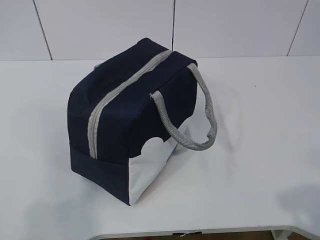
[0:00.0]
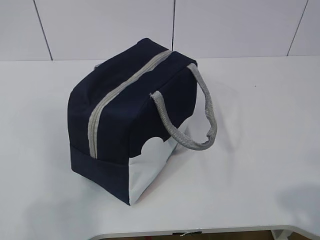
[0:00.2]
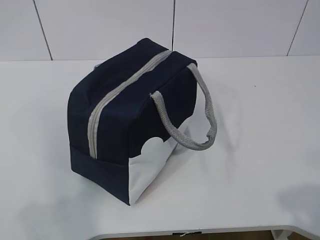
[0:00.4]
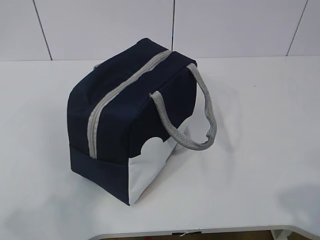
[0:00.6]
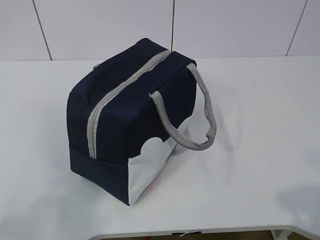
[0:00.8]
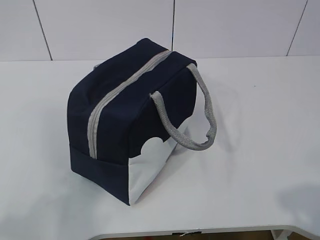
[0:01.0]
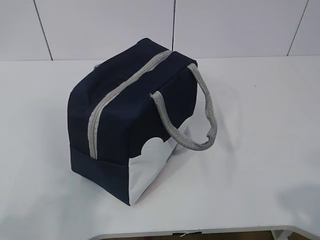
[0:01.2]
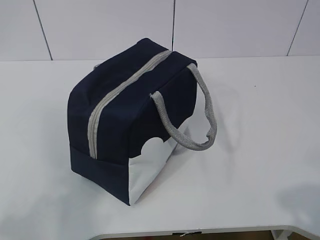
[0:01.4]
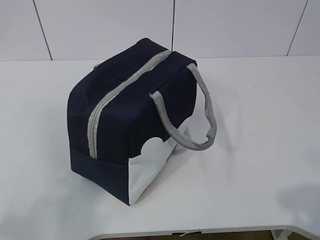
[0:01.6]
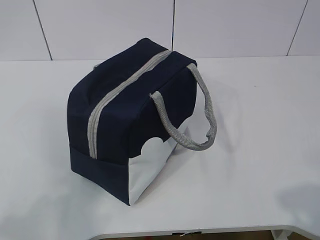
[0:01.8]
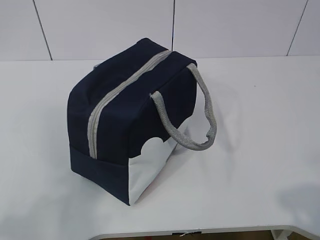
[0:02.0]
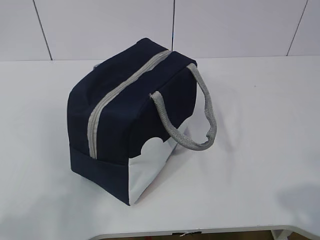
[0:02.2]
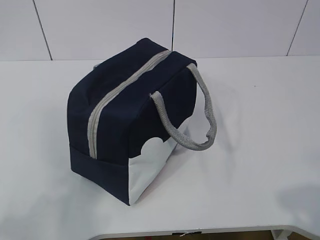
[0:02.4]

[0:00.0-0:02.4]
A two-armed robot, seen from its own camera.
0:01.2 to 0:02.4: The two grippers keep their place.

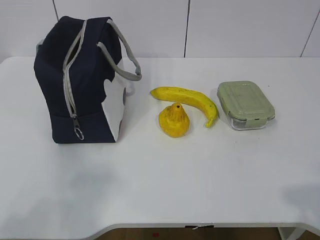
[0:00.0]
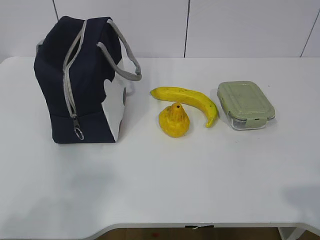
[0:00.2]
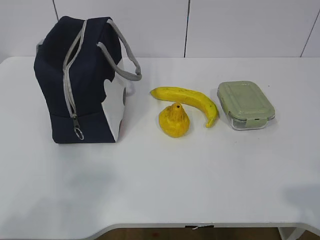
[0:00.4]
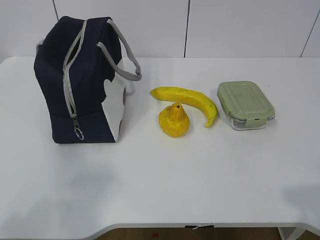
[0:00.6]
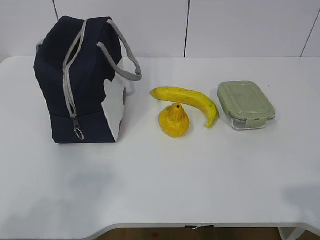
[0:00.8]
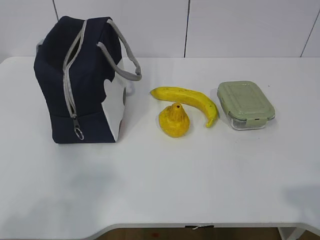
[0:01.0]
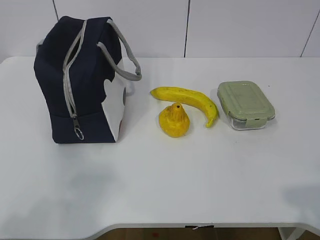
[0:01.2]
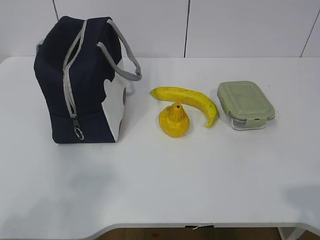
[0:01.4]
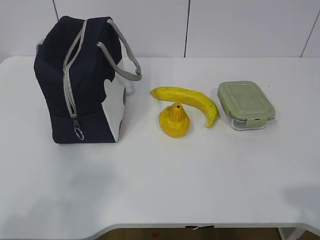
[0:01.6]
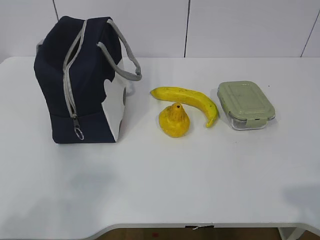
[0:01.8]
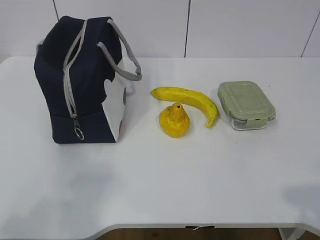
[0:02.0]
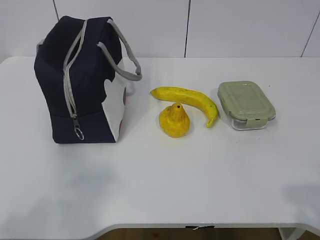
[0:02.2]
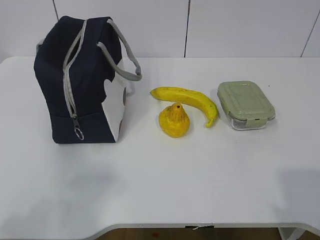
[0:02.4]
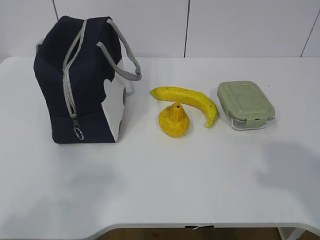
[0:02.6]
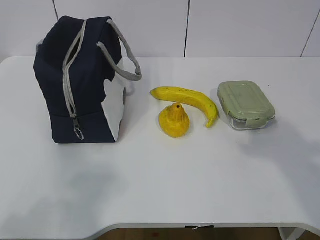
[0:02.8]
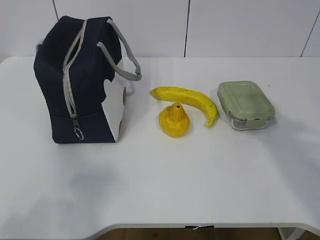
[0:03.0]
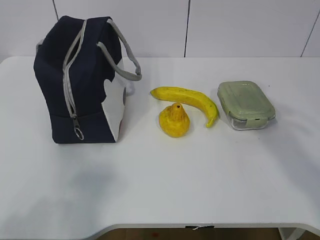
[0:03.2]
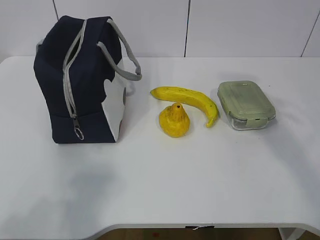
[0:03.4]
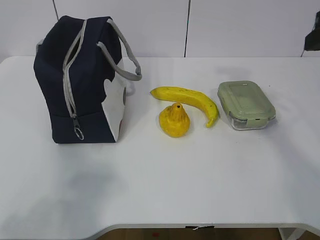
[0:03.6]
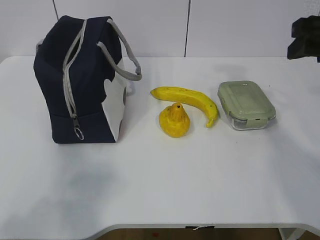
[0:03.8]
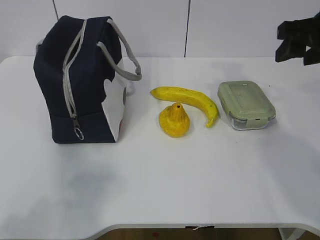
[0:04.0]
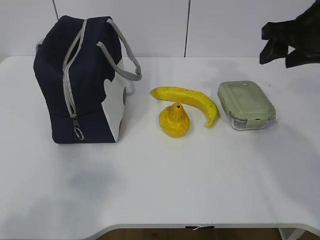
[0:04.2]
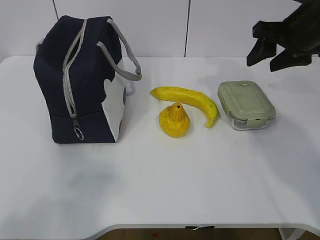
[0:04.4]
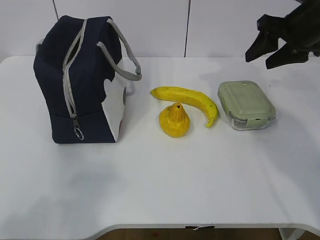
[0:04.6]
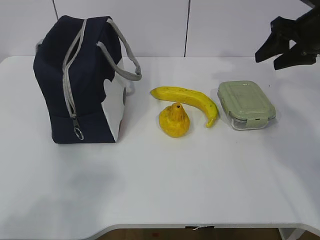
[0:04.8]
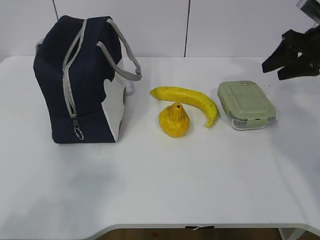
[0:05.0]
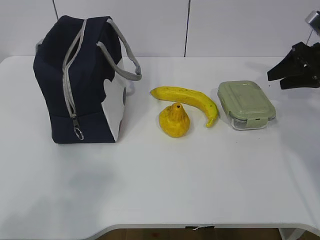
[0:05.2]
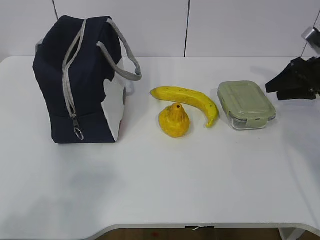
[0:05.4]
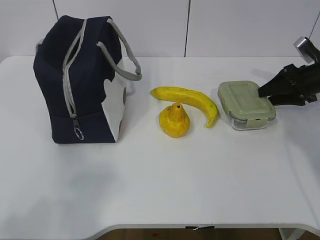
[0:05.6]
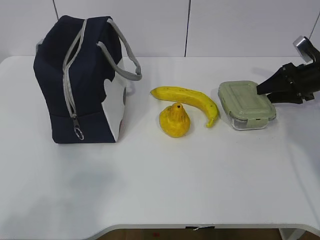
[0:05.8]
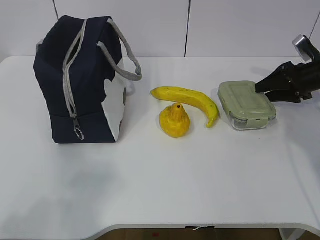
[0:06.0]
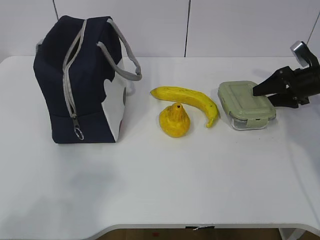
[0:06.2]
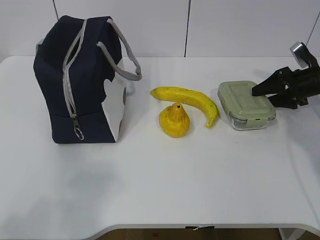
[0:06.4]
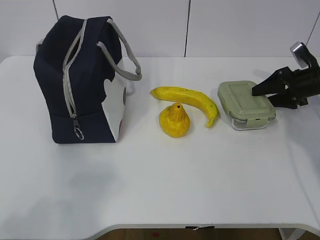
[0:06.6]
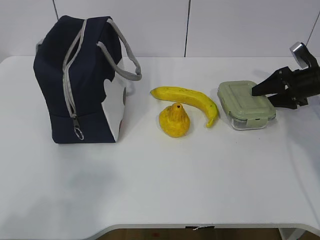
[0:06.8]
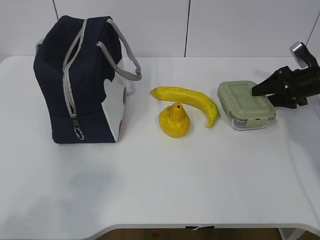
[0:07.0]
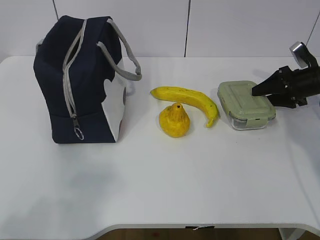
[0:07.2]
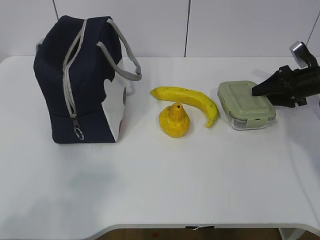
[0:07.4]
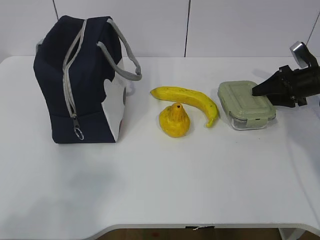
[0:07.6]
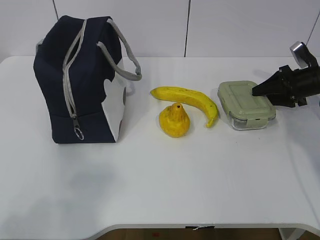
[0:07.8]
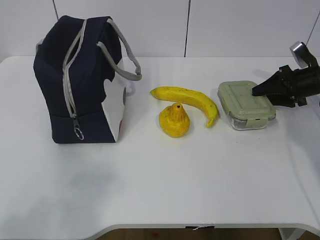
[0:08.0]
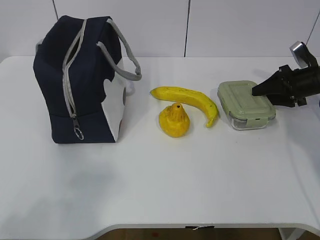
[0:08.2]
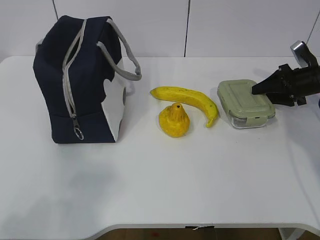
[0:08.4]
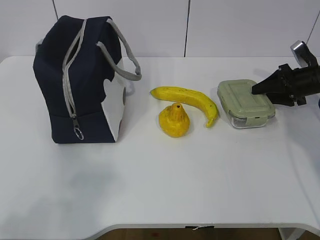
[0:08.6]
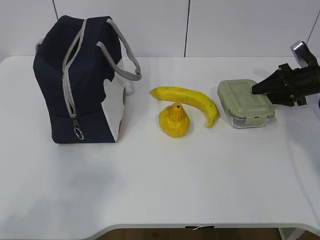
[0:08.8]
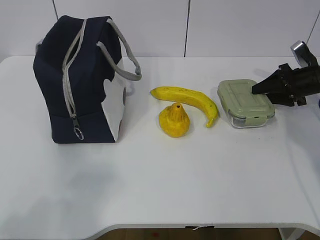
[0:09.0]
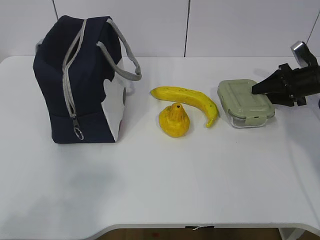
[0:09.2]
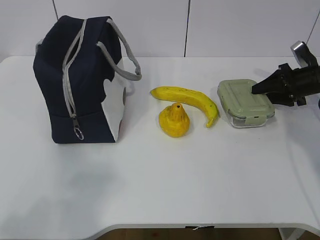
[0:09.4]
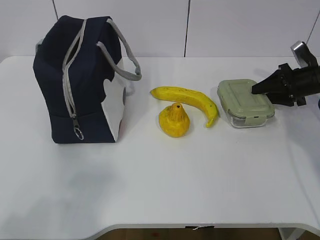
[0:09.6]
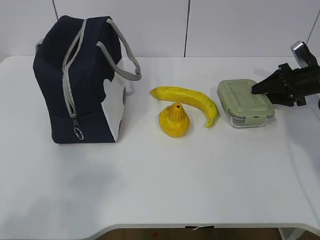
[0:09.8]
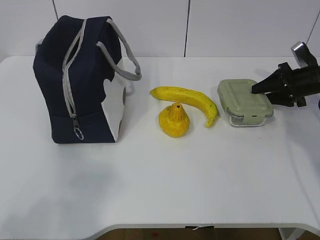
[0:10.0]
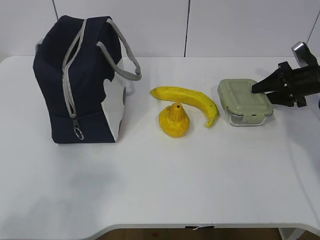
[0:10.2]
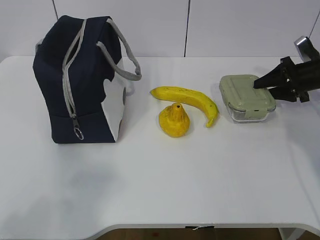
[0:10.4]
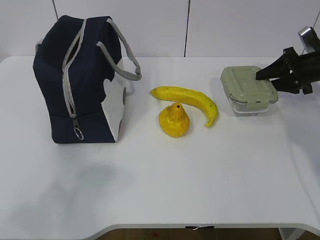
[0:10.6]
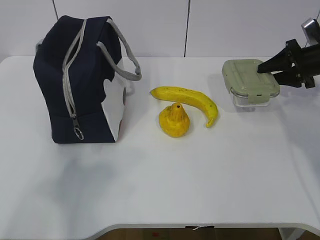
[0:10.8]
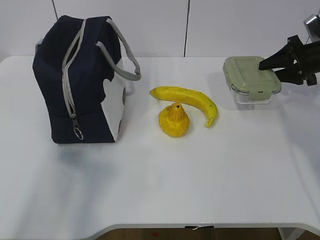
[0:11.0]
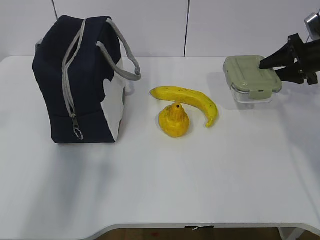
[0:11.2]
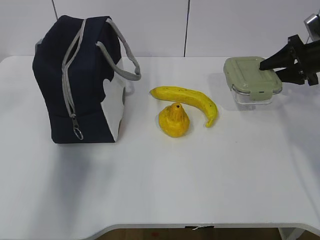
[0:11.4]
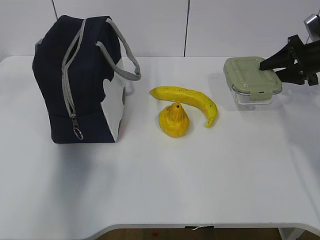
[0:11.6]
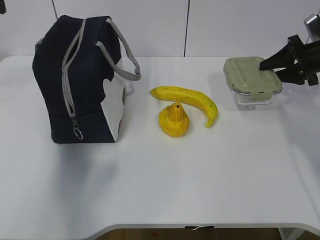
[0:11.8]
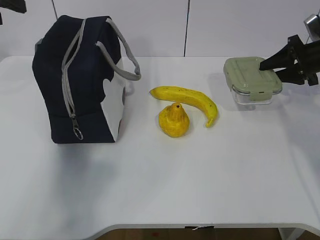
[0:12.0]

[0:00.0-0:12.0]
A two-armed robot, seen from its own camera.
Step, 0:00.0 to 0:08.2: Grab the lunch box with your right hand.
0:01.6 to 0:03.0: The right gripper travels forward and upward by roughly 15 cm.
0:03.0 to 0:04.4: The right gripper goes about 25 cm forward.
0:04.4 to 0:06.0: The right gripper shifts some 20 cm downward, to the right and forward.
0:06.0 to 0:07.6: The grippers stay close to where they were, moving slightly.
0:07.6 to 0:09.0: Both grippers stay about where they are.
0:09.0 to 0:10.4: Both grippers stay put.
0:10.4 to 0:12.0: The left gripper is displaced forward by about 35 cm, and opens up.

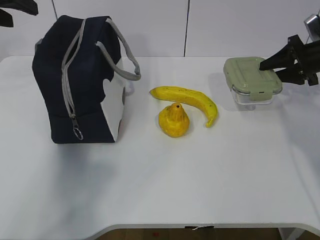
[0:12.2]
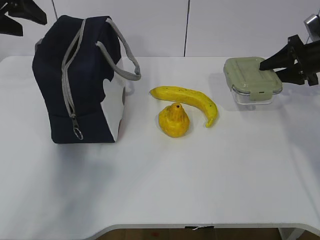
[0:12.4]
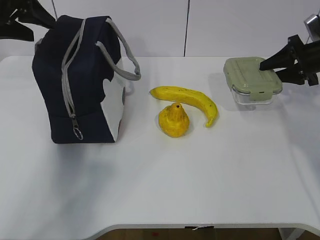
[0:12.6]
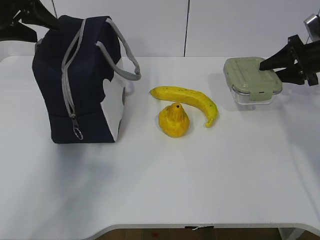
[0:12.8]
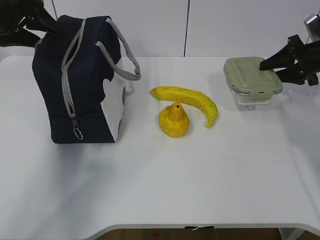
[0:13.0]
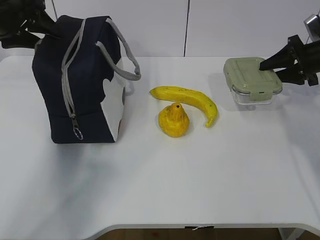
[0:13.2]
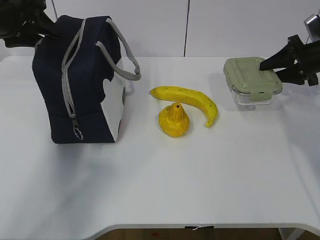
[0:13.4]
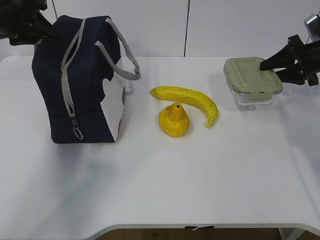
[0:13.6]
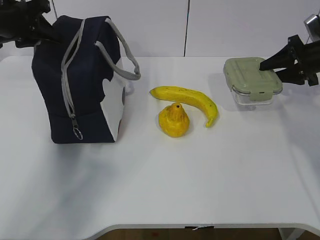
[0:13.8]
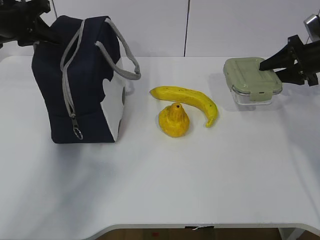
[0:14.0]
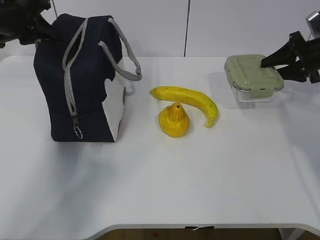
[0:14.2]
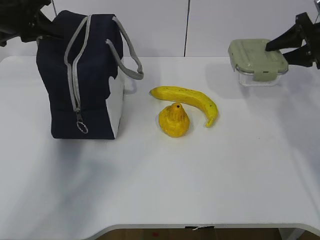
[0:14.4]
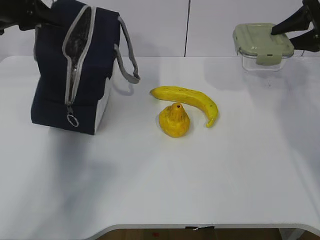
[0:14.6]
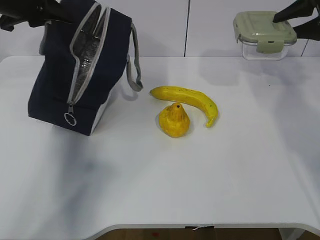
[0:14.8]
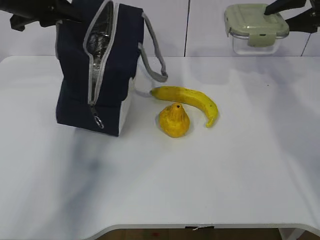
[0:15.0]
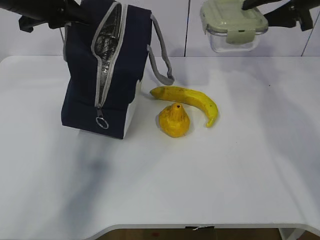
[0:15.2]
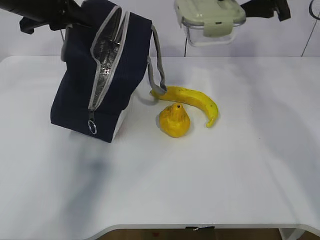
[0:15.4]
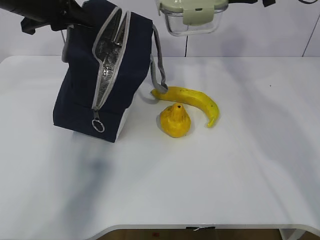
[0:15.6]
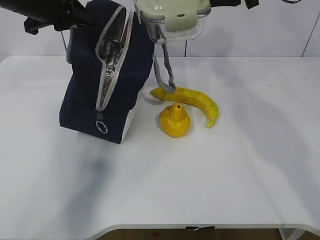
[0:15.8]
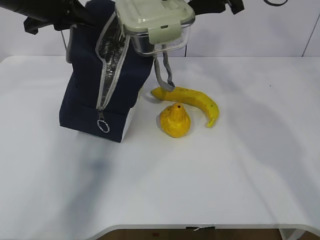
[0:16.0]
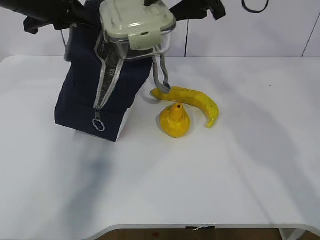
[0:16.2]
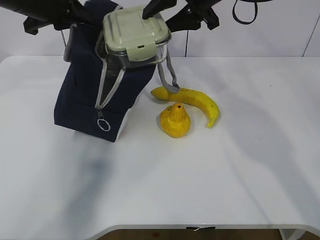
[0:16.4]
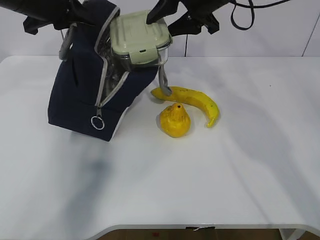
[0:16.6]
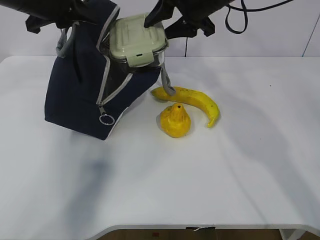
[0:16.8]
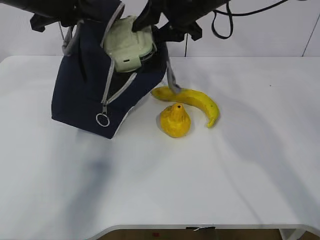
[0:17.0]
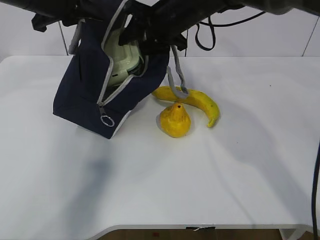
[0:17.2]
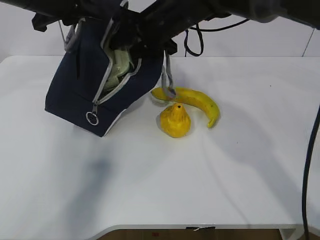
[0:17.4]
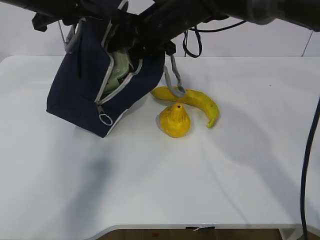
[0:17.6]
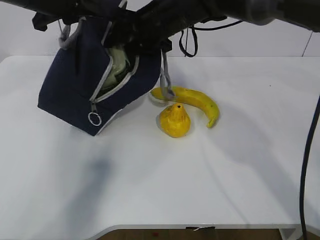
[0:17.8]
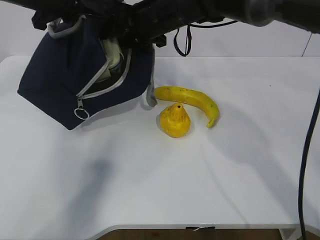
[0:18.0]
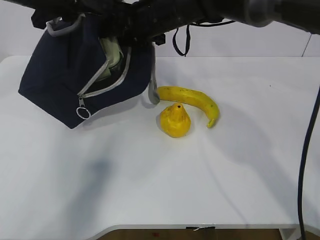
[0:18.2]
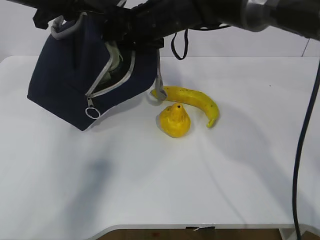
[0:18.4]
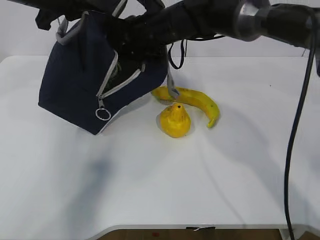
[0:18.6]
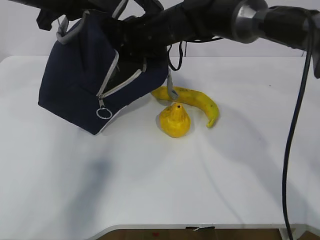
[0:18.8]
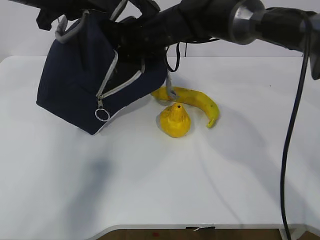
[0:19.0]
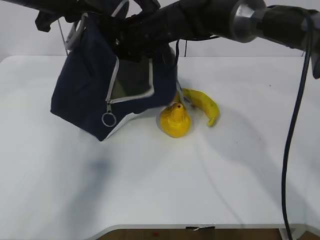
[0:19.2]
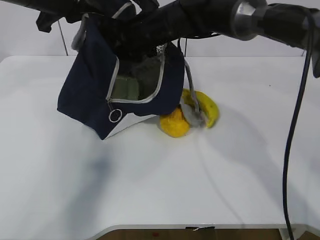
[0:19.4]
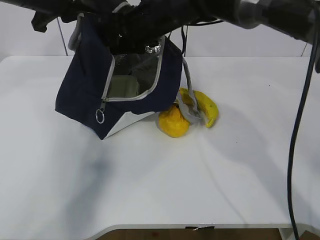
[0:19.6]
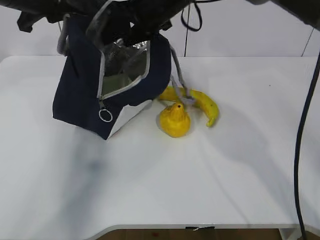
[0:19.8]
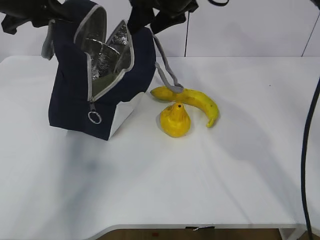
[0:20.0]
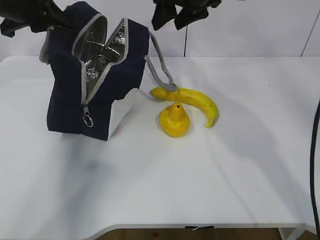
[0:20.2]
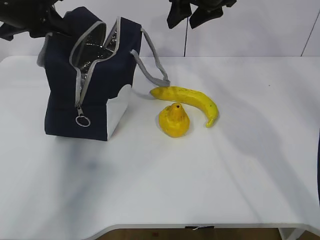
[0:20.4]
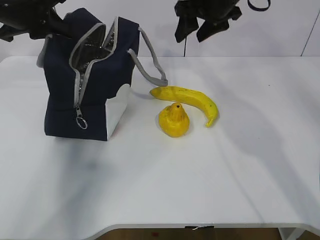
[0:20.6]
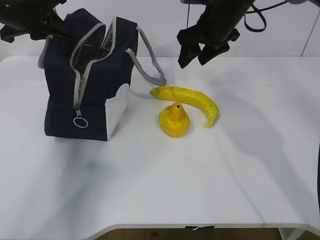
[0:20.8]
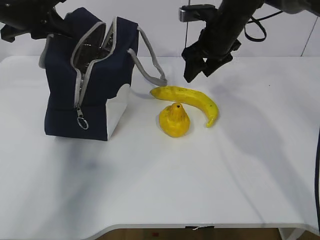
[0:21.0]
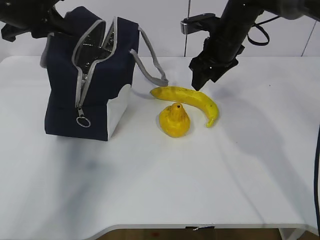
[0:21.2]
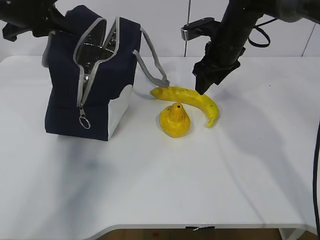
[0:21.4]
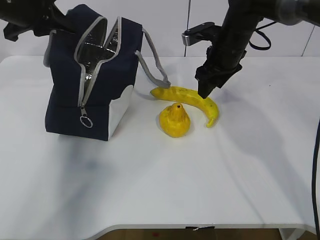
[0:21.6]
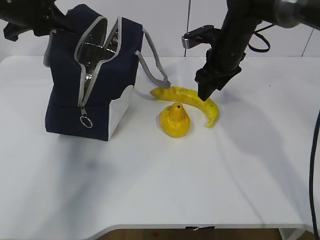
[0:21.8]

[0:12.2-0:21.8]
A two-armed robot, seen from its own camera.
Step, 0:13.8 to 0:16.0: Place it into the bag with your right hand.
Step, 0:16.4 to 0:19.6: Grab the banana with your right hand.
0:12.2 to 0:13.8: The left gripper heads downward, covering about 5 cm, and closes its fingers.
0:13.8 to 0:15.4: The left gripper moves to the right, some 5 cm, while the right gripper heads upward and to the left, covering about 20 cm.
0:15.4 to 0:17.0: The right gripper is displaced to the left by approximately 15 cm.
0:17.0 to 0:18.6: The right gripper is displaced to the left and downward by some 10 cm.
0:18.6 to 0:20.2: The right gripper shifts about 10 cm to the right and upward, while the left gripper travels to the left by approximately 5 cm.
0:20.2 to 0:21.8: The right gripper moves downward and to the right, approximately 15 cm.
